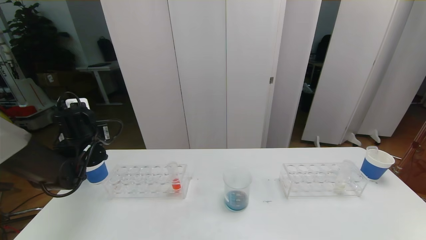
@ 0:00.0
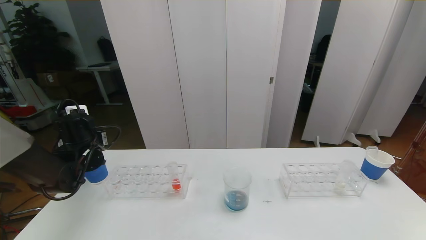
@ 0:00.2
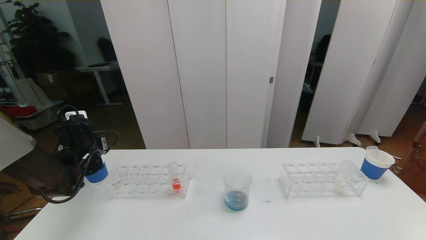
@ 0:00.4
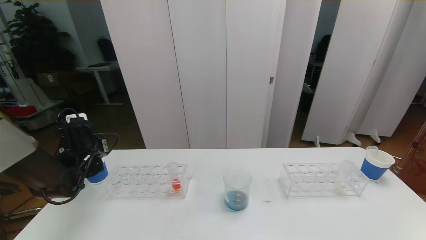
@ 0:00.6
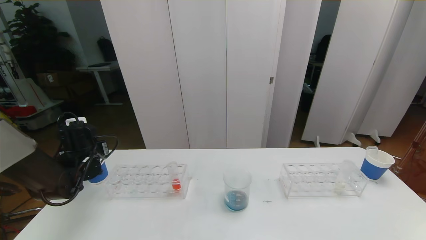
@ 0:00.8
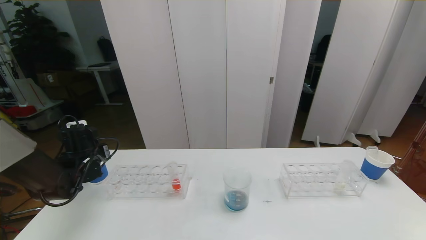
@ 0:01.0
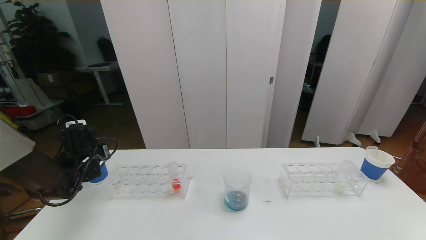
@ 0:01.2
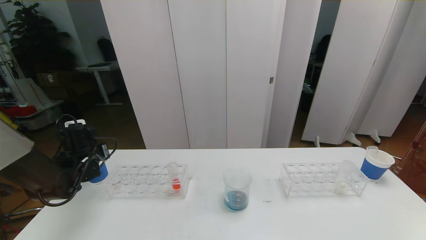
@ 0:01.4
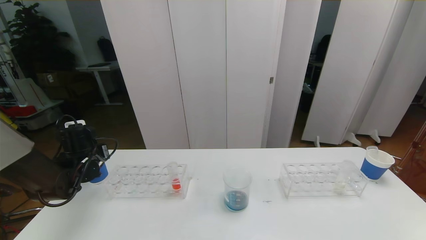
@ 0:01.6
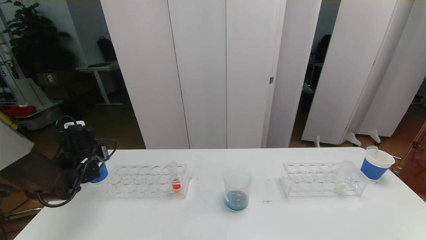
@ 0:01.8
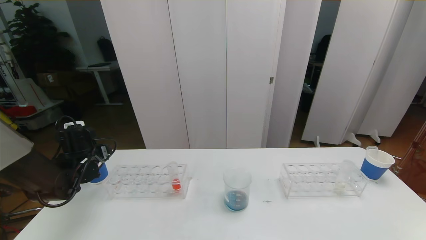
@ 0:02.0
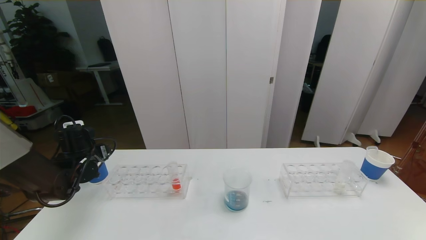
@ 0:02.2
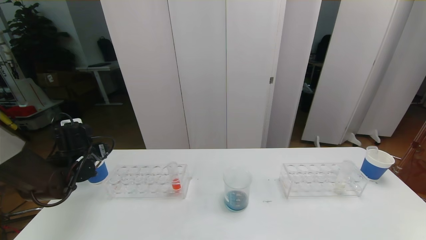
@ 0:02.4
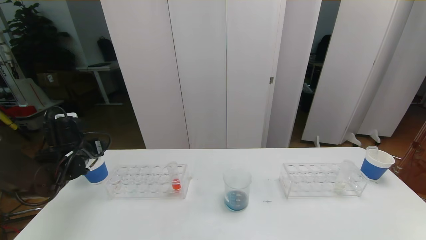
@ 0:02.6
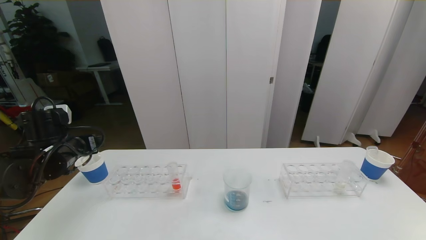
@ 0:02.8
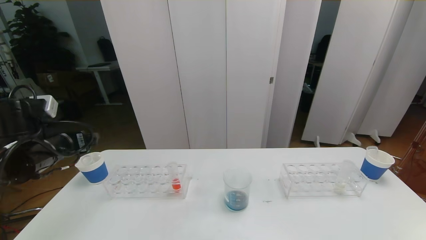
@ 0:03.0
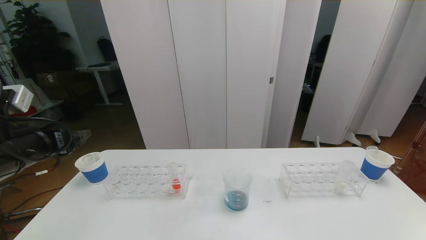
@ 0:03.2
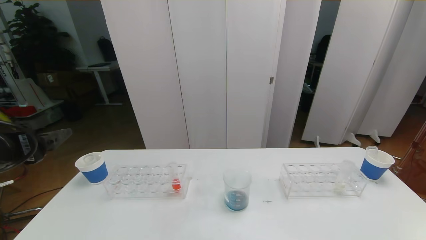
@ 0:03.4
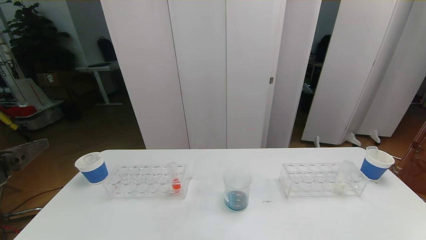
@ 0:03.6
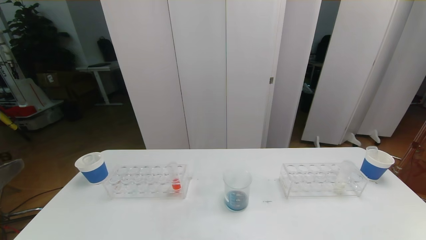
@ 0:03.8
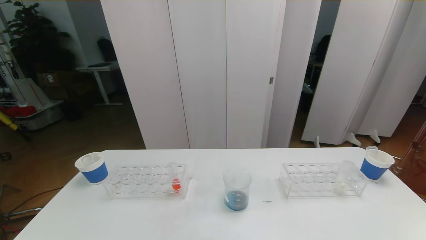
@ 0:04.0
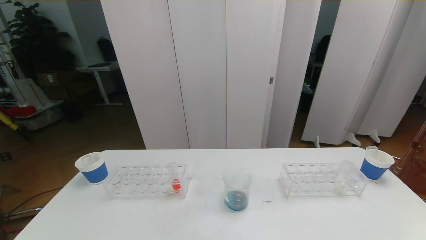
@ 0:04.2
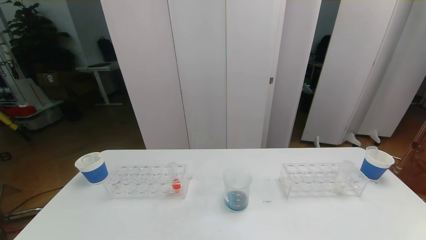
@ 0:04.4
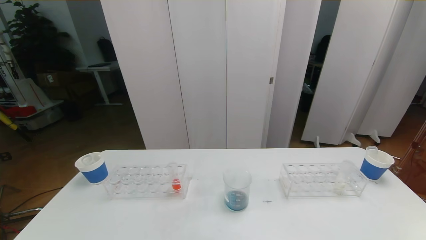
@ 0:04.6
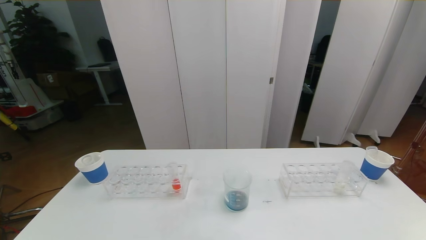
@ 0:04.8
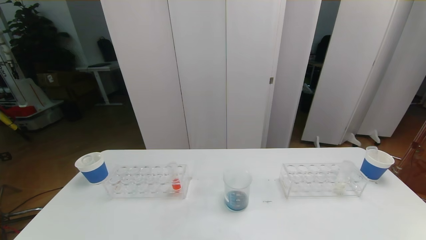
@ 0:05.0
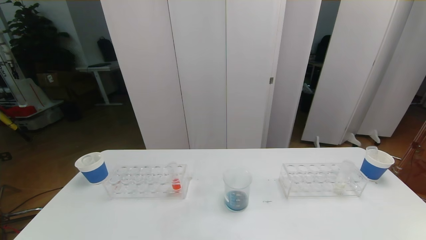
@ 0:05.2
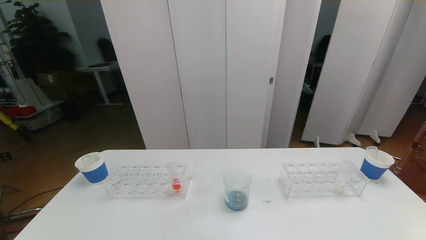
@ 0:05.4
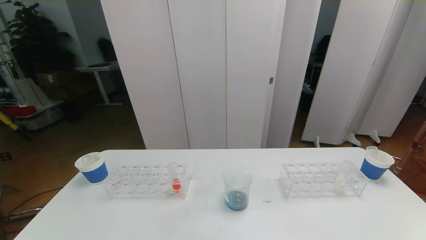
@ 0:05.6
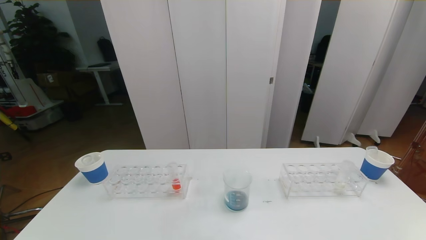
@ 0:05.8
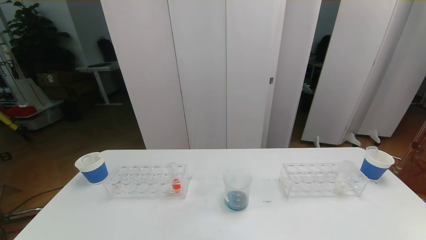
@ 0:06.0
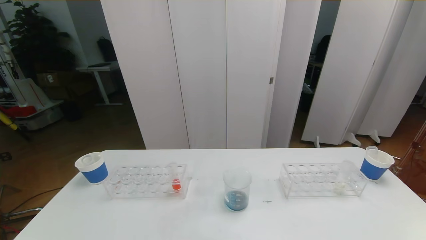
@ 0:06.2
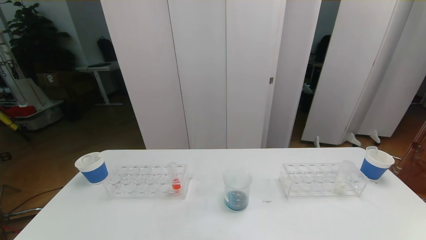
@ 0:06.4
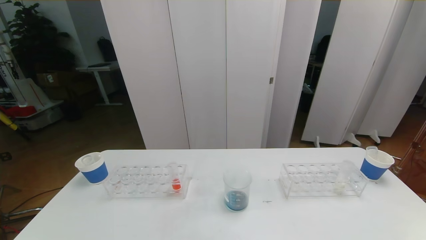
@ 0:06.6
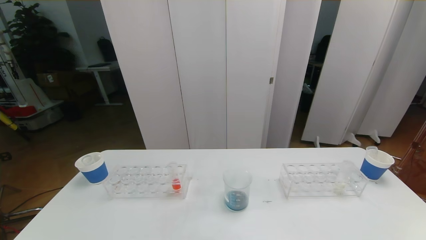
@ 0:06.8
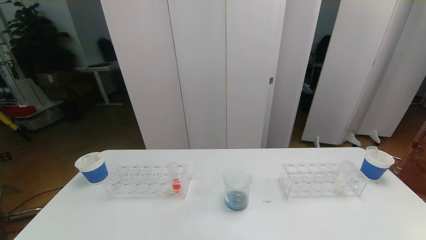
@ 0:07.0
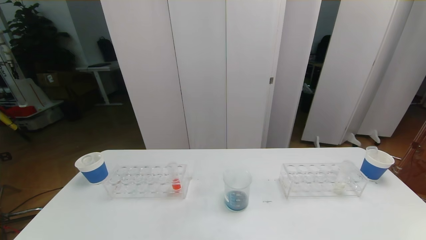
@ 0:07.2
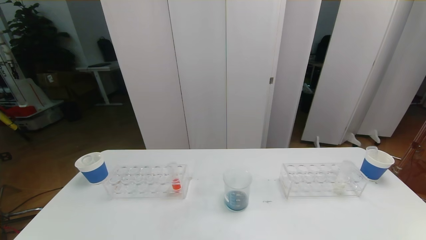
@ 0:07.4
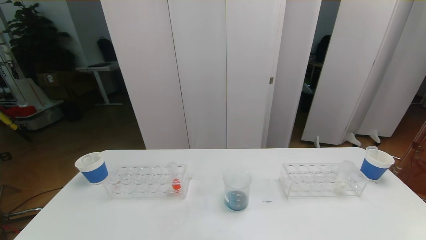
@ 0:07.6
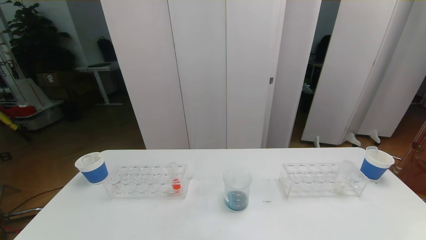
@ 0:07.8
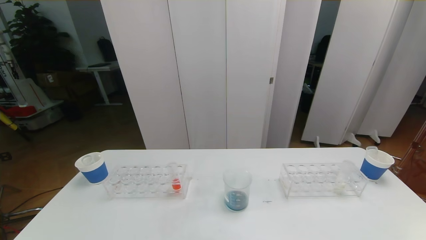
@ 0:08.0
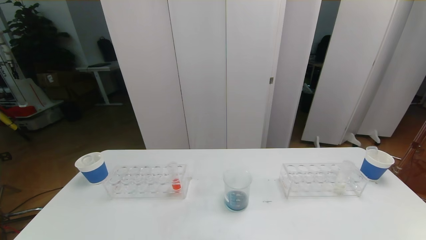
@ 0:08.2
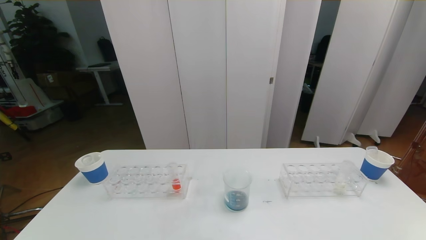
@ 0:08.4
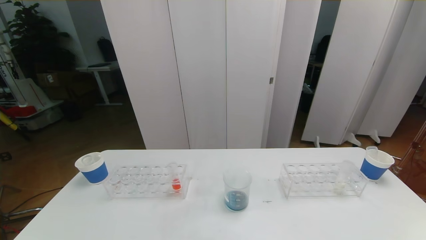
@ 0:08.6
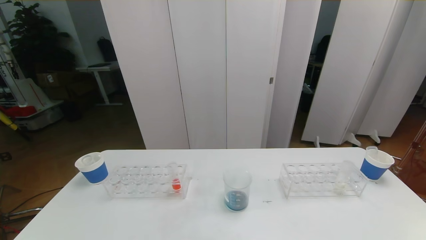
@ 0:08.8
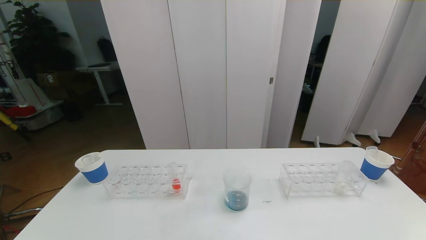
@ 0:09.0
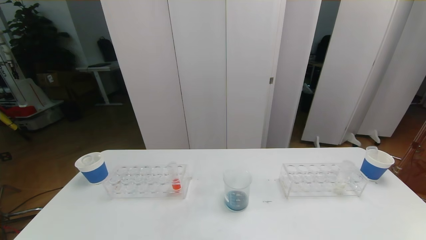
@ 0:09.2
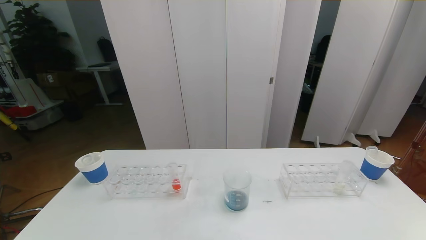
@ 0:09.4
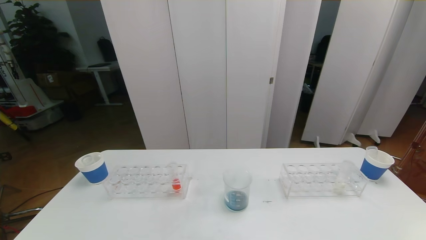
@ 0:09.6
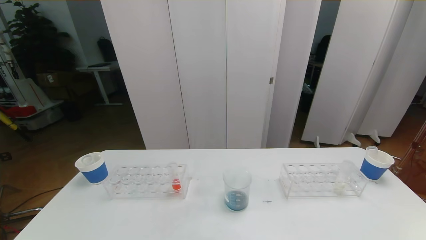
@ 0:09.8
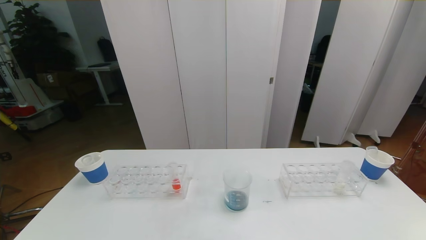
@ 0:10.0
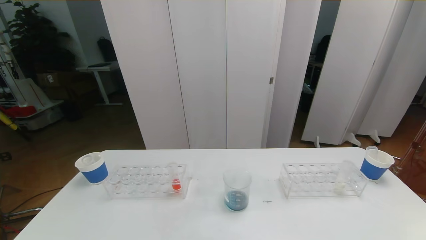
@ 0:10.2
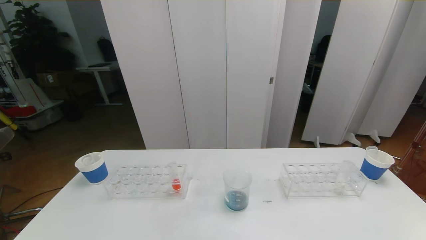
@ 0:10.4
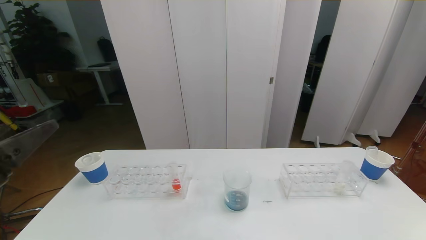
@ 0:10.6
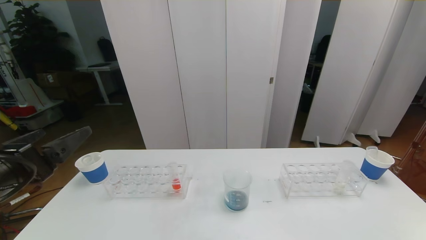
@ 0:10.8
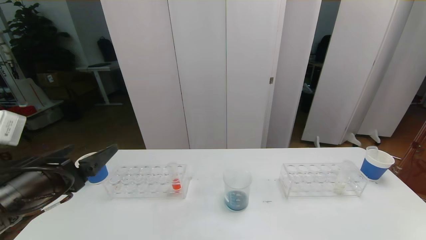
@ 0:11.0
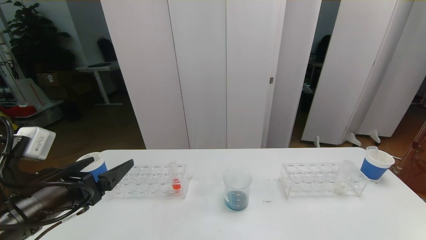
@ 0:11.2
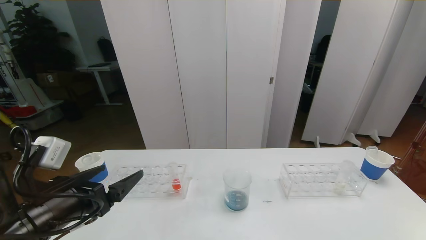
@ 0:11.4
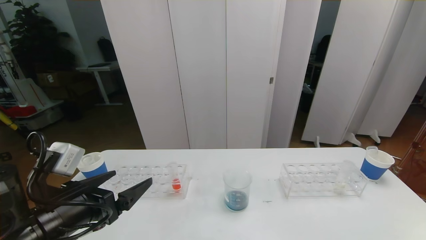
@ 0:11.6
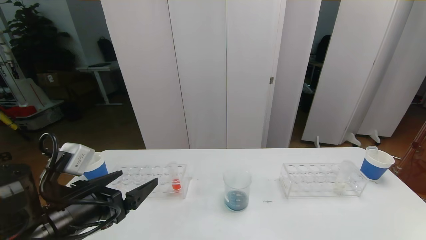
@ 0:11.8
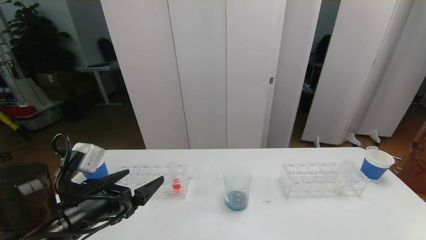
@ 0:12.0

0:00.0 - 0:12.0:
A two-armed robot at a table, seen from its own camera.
Task of the whole recording: pick up the test tube with red pigment the test tube with blue pigment and the test tube with white pigment by grippers and pour them into the beaker.
Step, 0:00.0 - 0:04.4: Pour the blue reagent into the graduated cylinder and place the test tube into the paper cup.
0:00.0 - 0:01.6: The left gripper changes place by some 5 cm.
0:01.6 - 0:03.0: The left gripper travels upward and backward by roughly 15 cm, and opens its fingers.
0:03.0 - 0:04.4: The left gripper shifts about 30 cm backward.
0:06.0 - 0:09.0: The two grippers keep their place.
0:10.4 - 0:12.0: The left gripper is displaced forward, downward and to the right by some 20 cm.

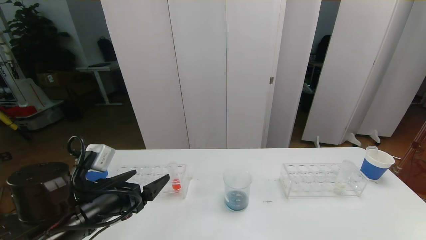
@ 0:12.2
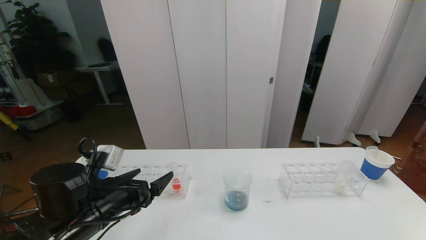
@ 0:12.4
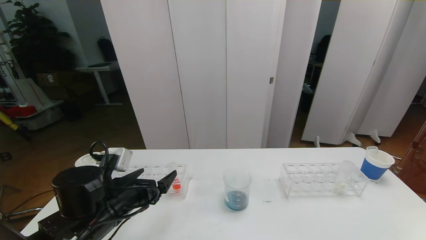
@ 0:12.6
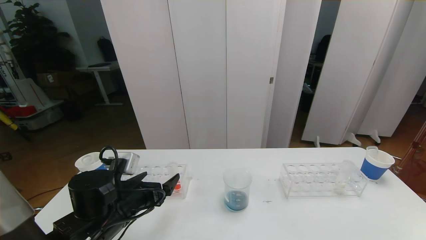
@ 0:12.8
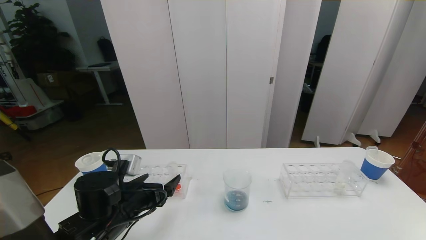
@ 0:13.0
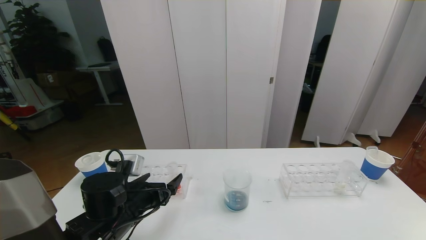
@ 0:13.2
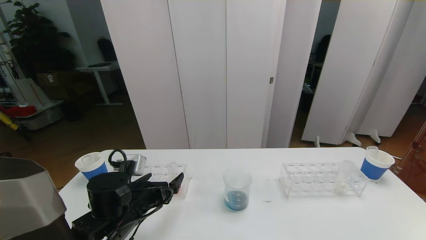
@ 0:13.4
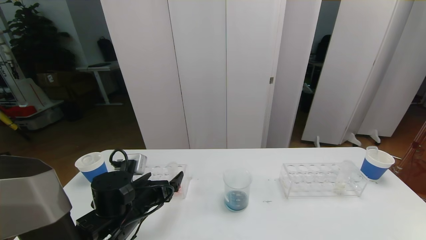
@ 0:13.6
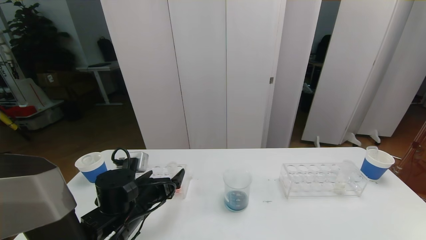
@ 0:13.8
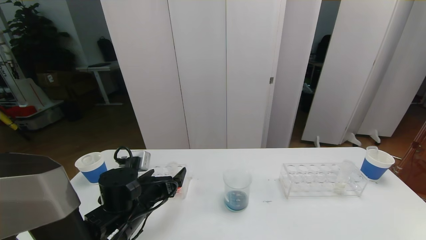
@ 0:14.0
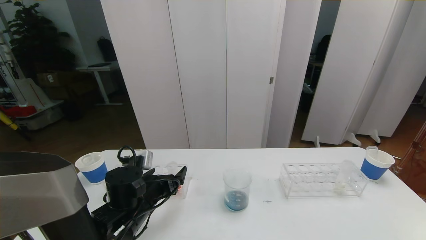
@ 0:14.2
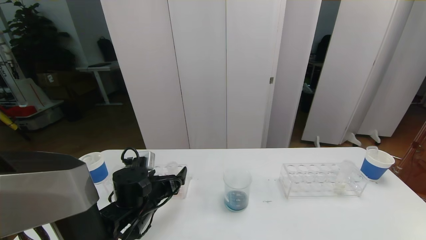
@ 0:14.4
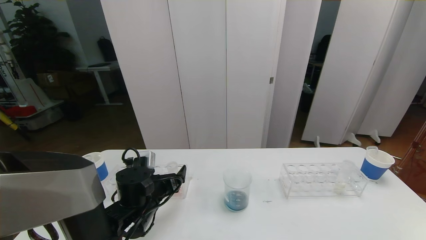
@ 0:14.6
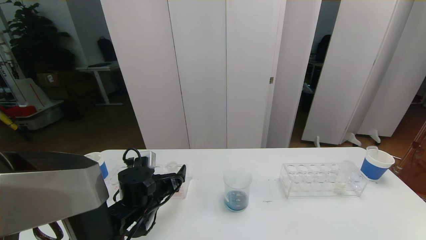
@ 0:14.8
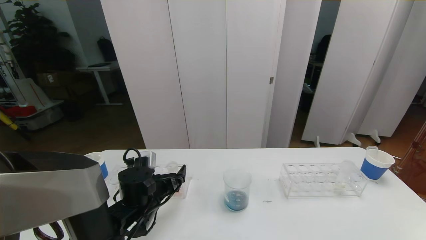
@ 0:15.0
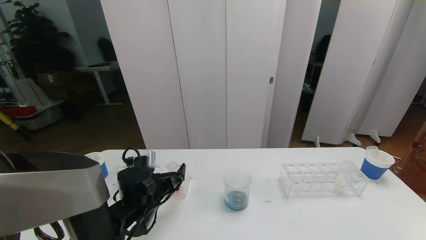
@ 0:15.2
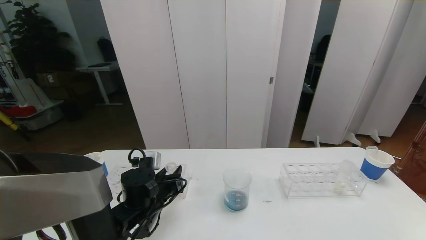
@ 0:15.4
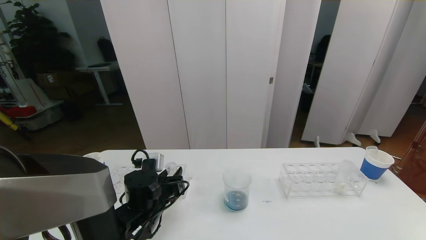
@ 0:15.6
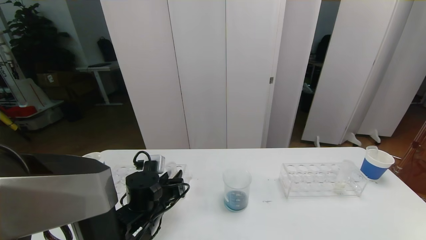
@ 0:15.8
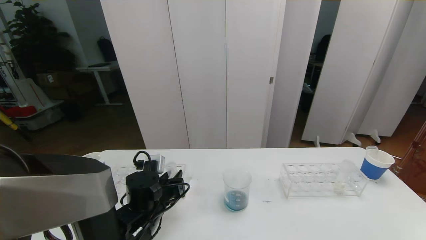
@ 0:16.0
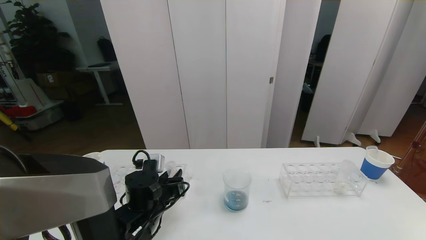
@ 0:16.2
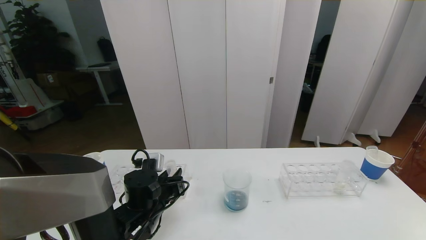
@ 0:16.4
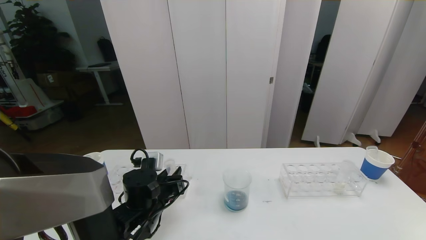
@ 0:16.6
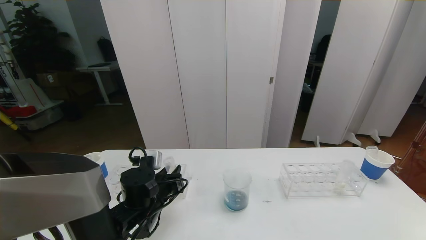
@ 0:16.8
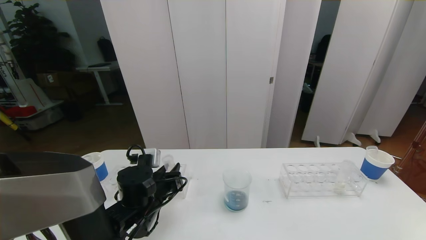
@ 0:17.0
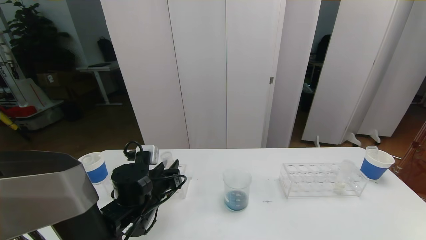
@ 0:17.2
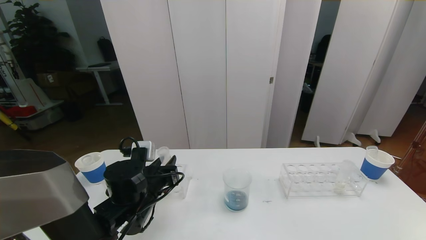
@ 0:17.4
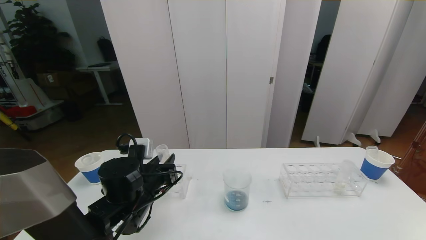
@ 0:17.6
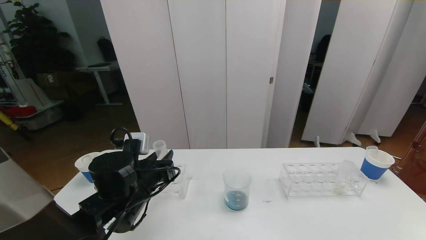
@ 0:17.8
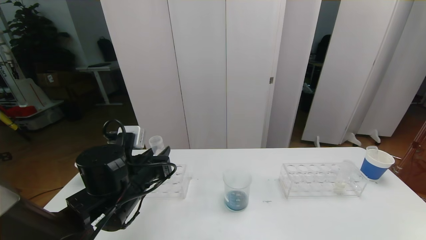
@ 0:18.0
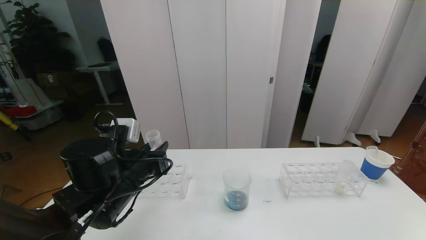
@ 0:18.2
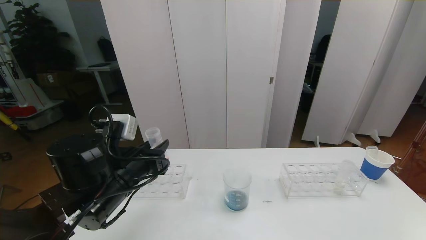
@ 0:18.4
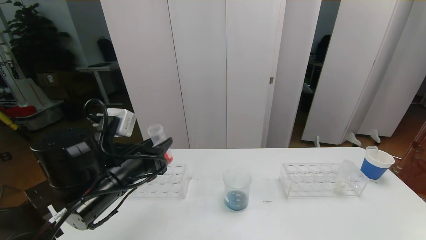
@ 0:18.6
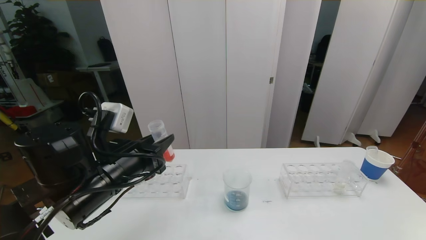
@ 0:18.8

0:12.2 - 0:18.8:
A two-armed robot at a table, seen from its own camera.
Task of the whole recording: pick up the test tube with red pigment the test tube with blue pigment and the test tube with white pigment by grippers and pour them into the beaker.
0:12.2 - 0:13.8: The left gripper is displaced downward and forward by roughly 10 cm.
0:13.8 - 0:15.4: The left gripper closes up.
0:15.4 - 0:17.2: The grippers make only small movements.
0:17.2 - 0:18.8: The left gripper goes roughly 10 cm upward.
